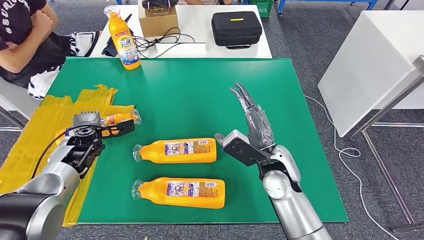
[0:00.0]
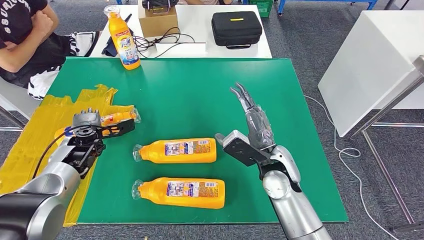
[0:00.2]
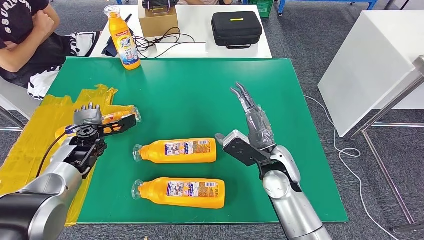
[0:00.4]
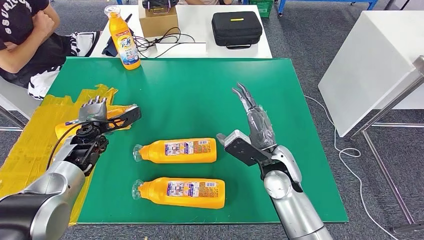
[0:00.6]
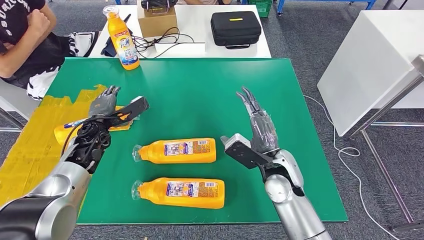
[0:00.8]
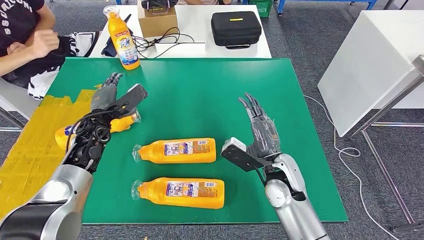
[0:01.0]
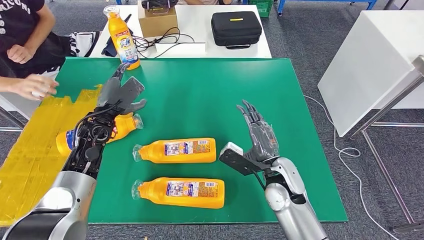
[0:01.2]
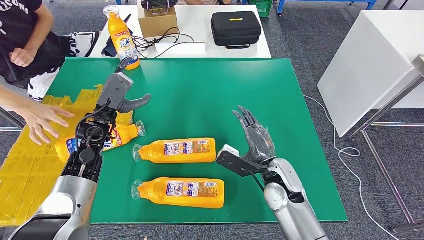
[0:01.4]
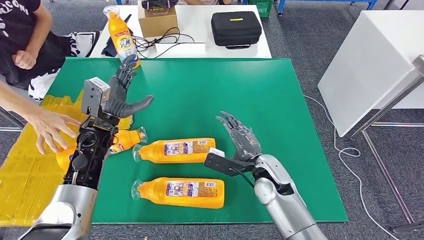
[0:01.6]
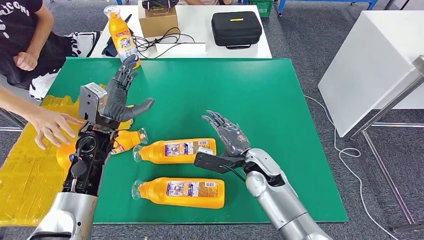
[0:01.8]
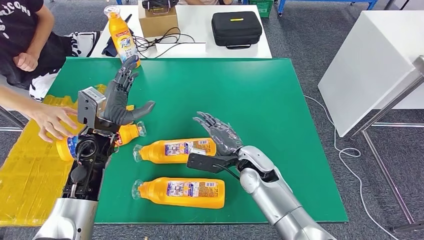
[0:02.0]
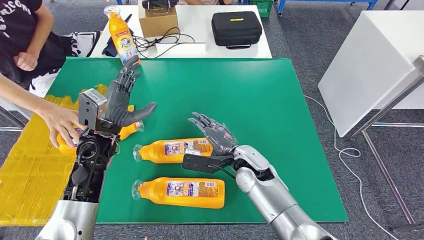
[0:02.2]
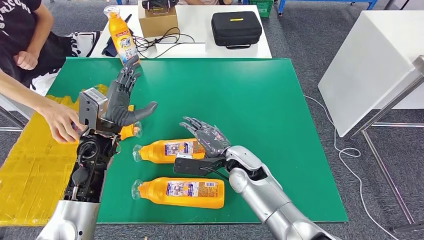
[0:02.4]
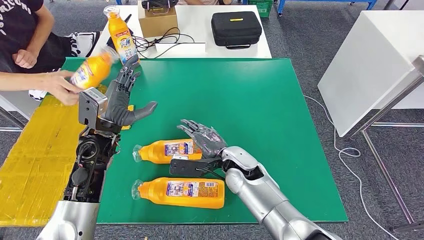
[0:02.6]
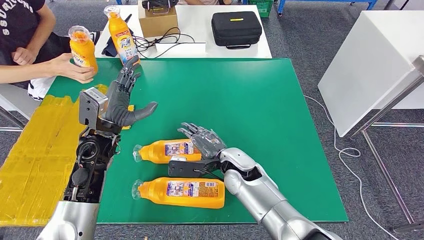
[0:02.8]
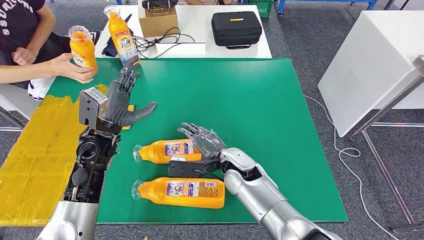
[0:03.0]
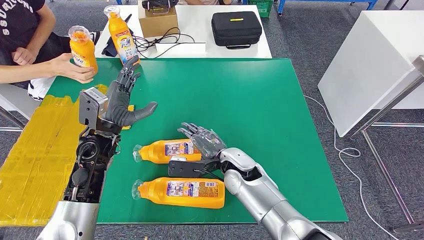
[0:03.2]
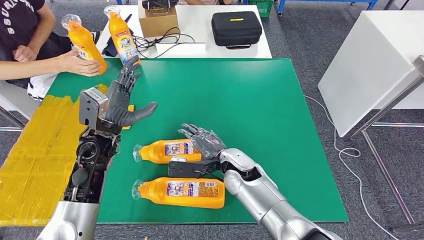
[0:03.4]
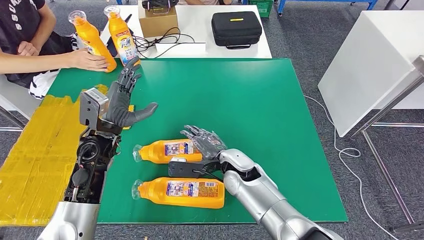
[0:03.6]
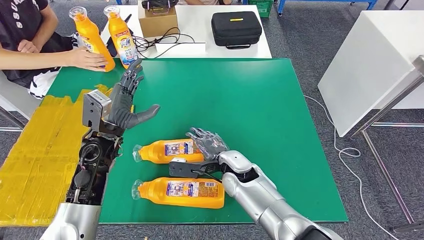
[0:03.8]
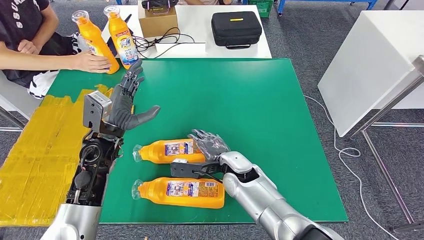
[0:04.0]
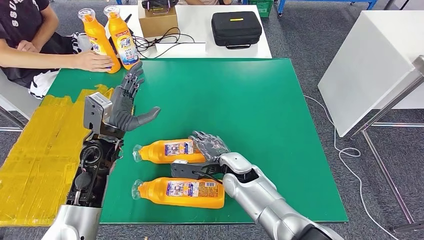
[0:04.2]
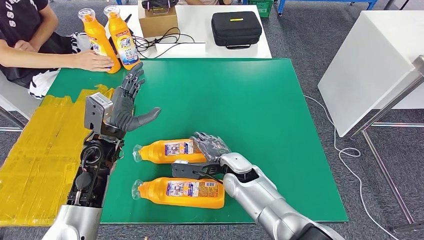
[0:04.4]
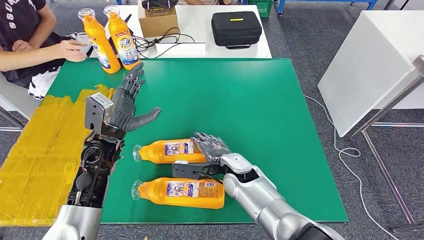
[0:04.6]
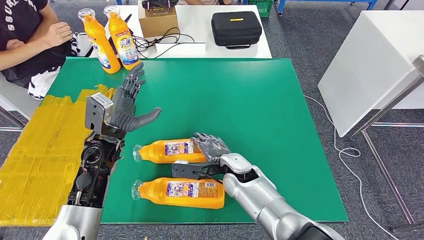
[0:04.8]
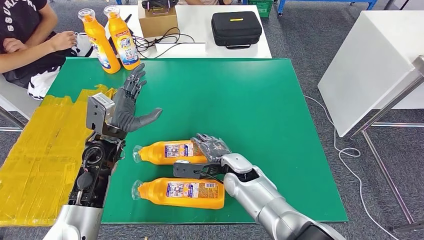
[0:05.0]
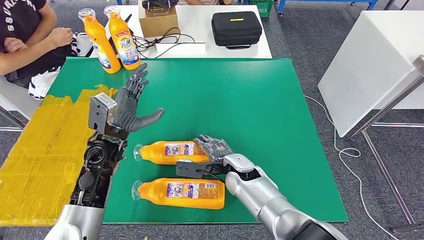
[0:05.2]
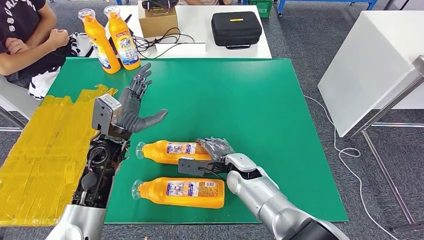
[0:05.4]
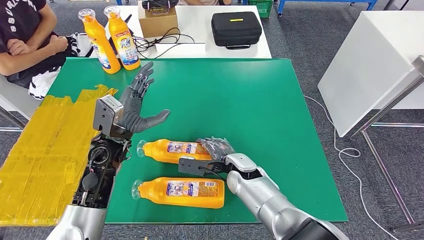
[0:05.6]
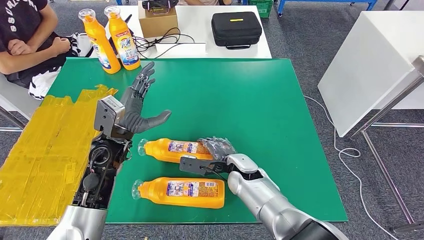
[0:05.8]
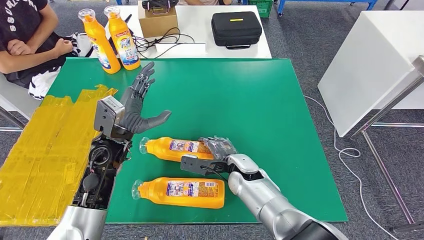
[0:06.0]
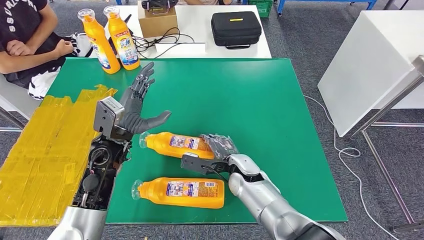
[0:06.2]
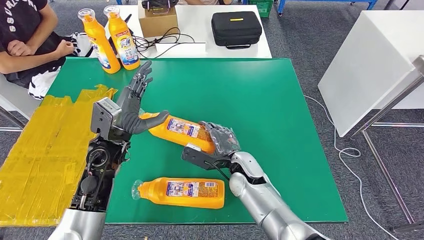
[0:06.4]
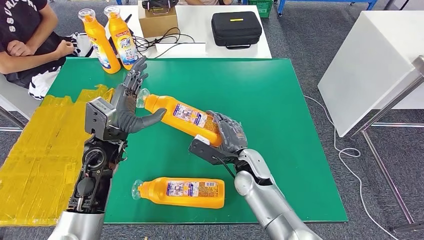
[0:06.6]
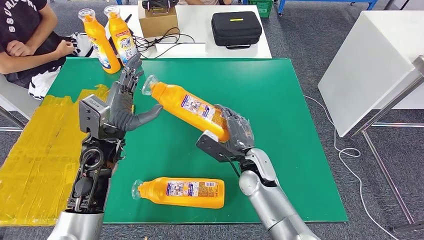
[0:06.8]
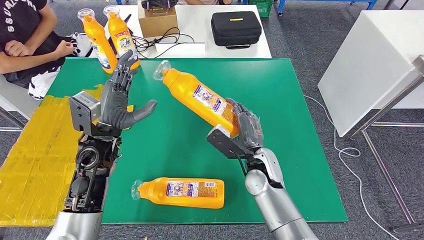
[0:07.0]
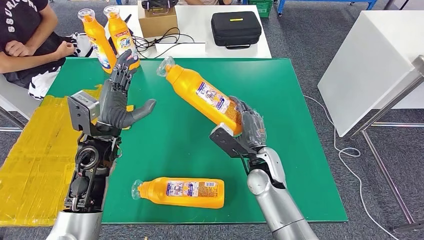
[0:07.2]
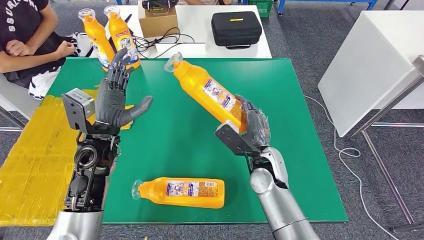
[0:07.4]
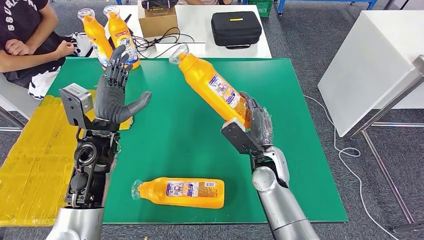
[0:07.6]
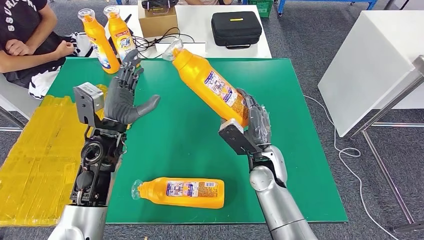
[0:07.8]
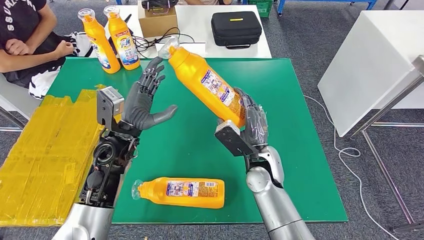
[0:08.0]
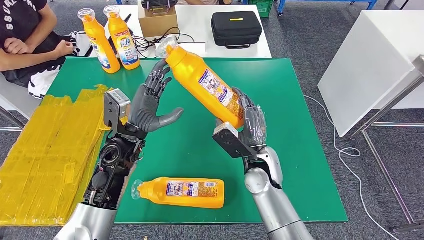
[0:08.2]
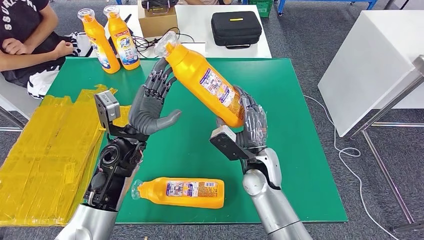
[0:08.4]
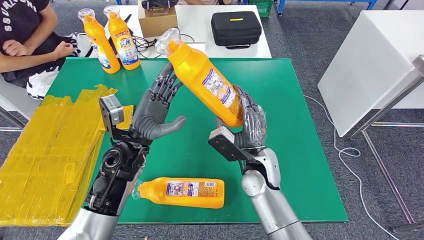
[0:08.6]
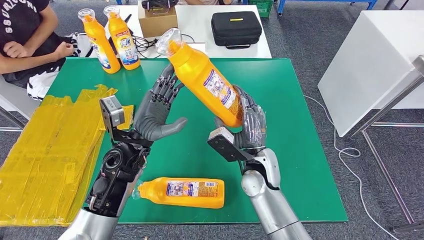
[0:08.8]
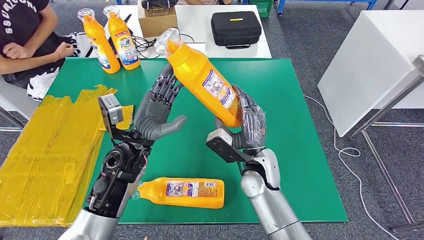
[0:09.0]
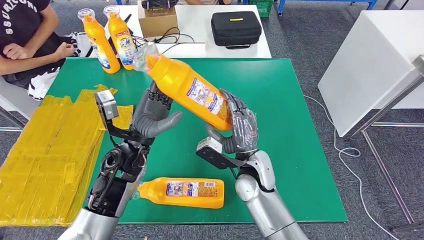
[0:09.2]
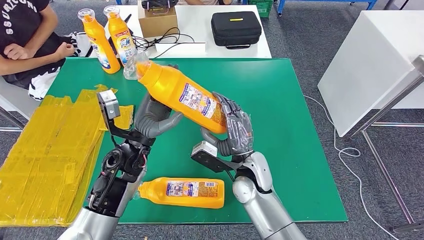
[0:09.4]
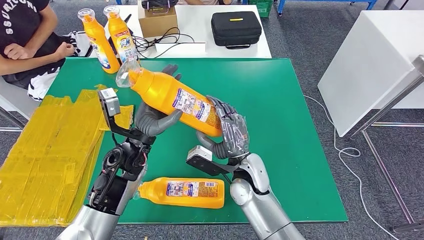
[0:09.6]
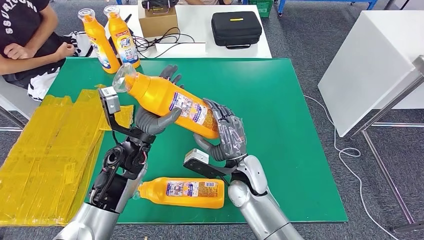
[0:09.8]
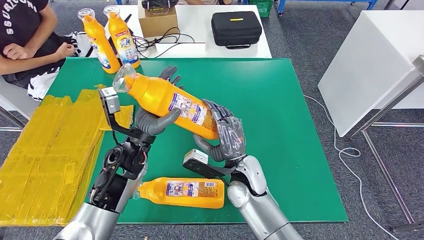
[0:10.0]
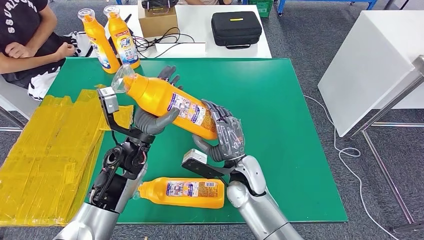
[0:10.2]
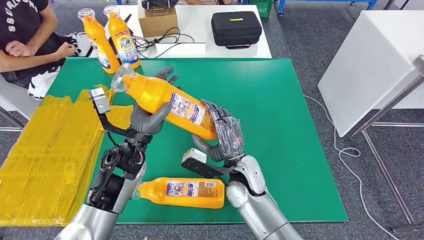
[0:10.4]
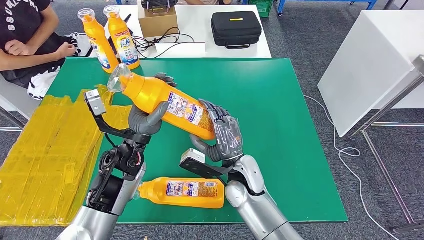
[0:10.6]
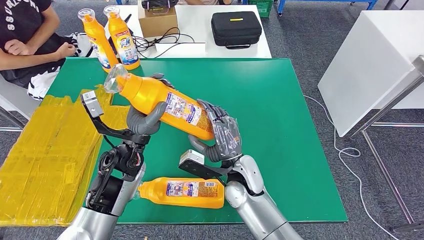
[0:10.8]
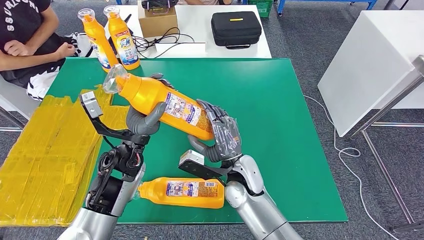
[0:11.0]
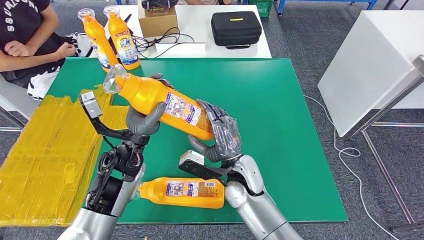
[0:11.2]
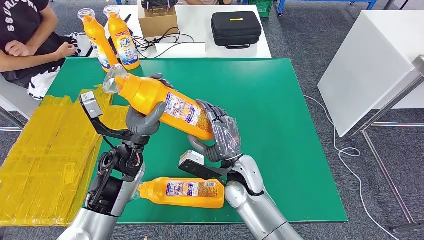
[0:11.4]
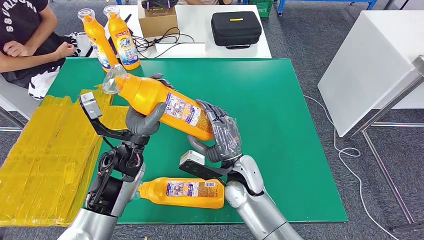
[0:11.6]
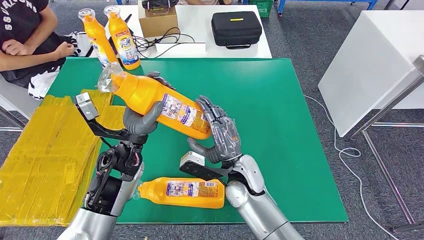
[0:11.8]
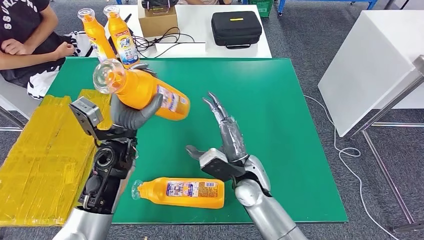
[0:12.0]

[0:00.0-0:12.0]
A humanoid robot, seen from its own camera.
Step, 0:00.2 to 0:09.8: Pick up the bottle from the table.
0:00.0 to 0:01.6: The left hand goes about 10 cm to the right and upward, while the right hand shifts by approximately 5 cm.
0:01.6 to 0:03.0: The right hand moves to the left, approximately 10 cm.
0:03.0 to 0:06.0: There are only small adjustments of the hands.
0:06.0 to 0:07.6: The right hand shifts approximately 10 cm to the right and upward.
0:07.6 to 0:09.0: The left hand moves to the right, some 5 cm.
0:09.0 to 0:10.4: The hands move only a little.

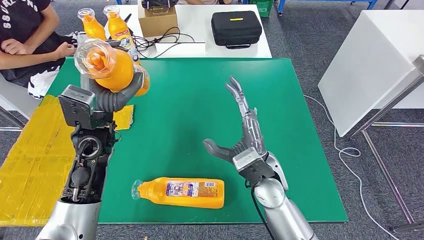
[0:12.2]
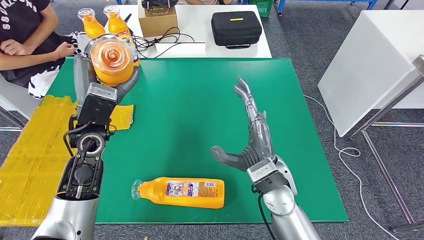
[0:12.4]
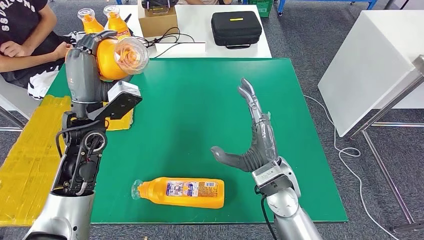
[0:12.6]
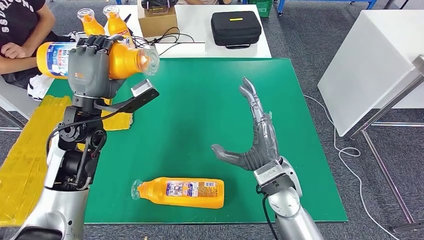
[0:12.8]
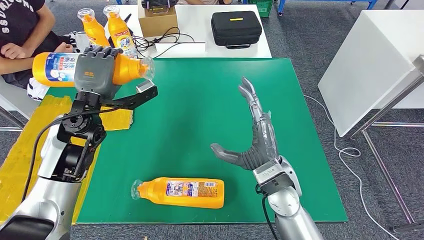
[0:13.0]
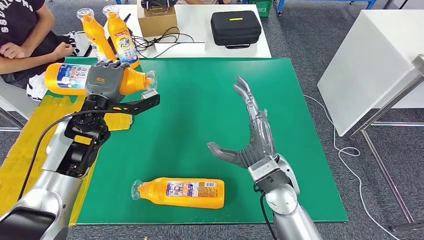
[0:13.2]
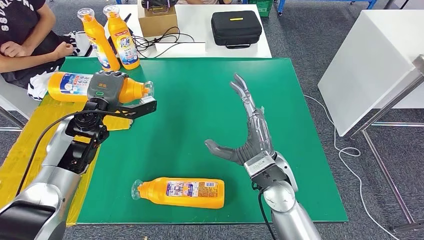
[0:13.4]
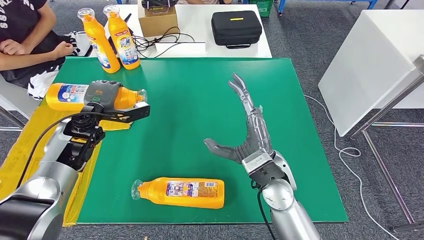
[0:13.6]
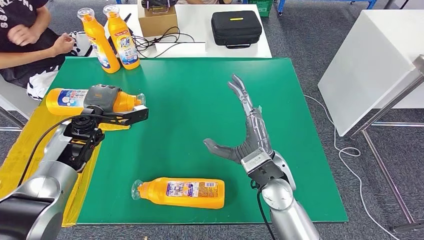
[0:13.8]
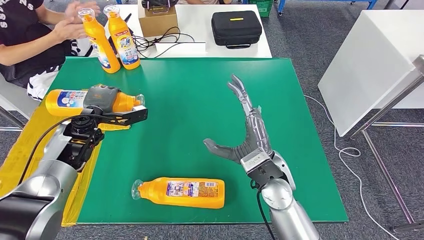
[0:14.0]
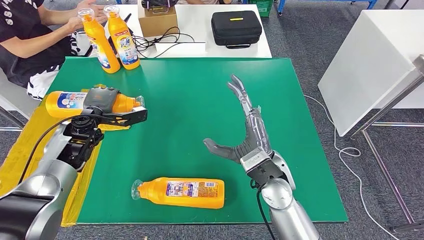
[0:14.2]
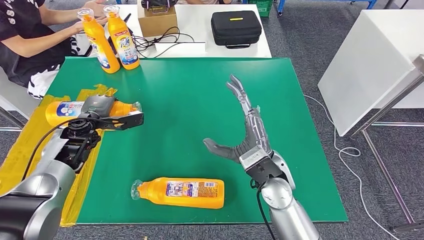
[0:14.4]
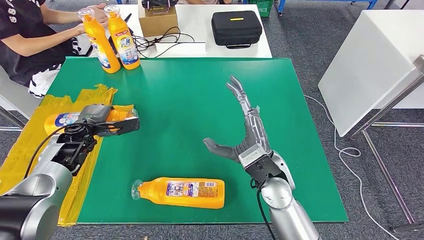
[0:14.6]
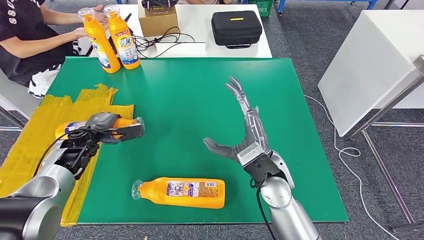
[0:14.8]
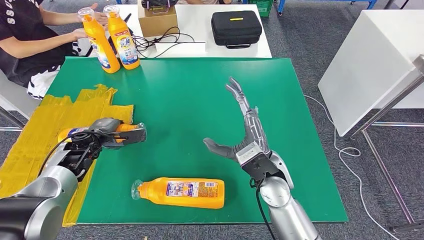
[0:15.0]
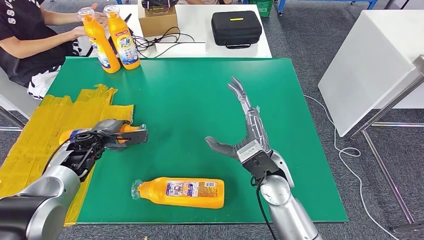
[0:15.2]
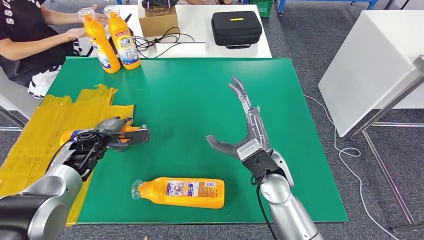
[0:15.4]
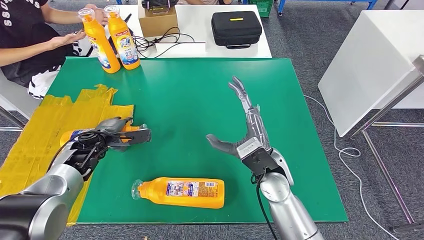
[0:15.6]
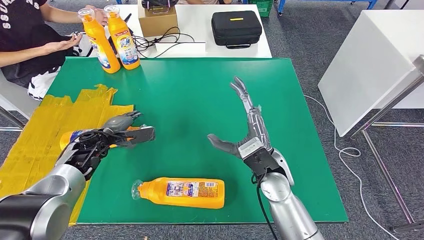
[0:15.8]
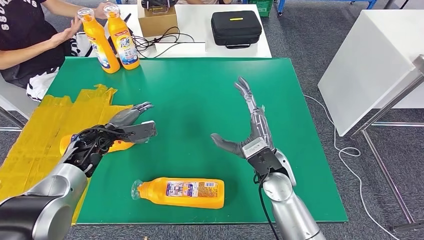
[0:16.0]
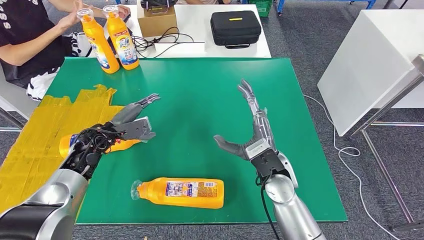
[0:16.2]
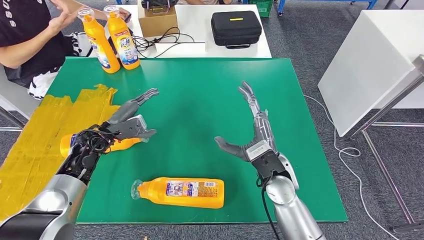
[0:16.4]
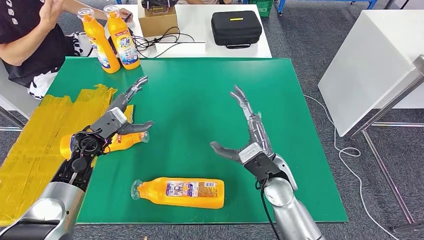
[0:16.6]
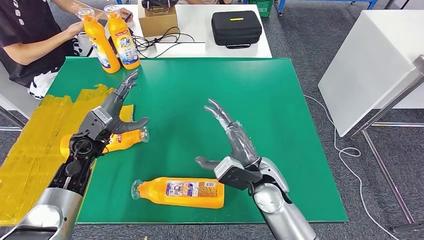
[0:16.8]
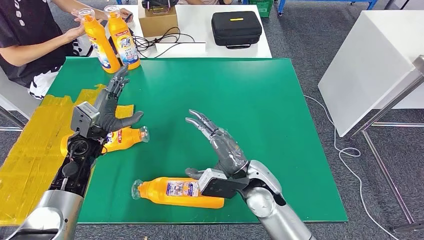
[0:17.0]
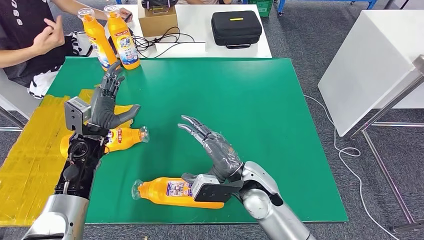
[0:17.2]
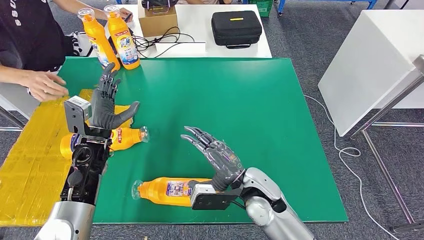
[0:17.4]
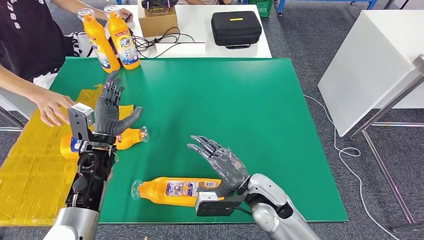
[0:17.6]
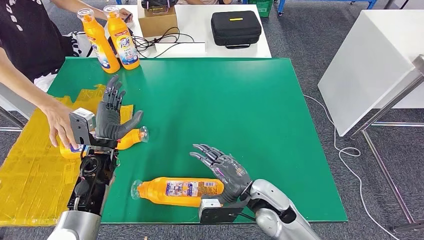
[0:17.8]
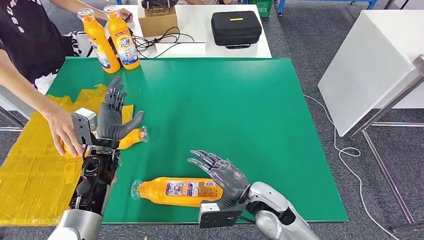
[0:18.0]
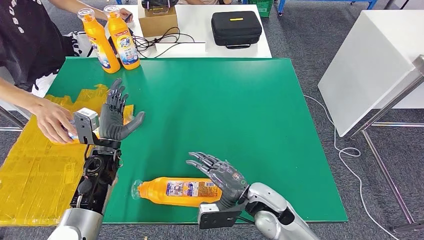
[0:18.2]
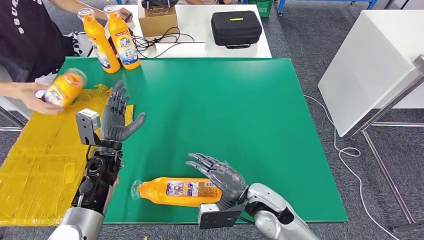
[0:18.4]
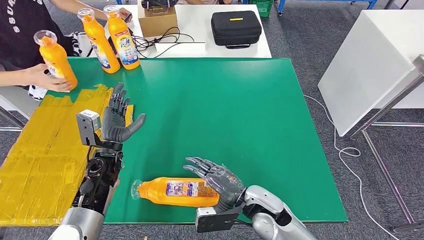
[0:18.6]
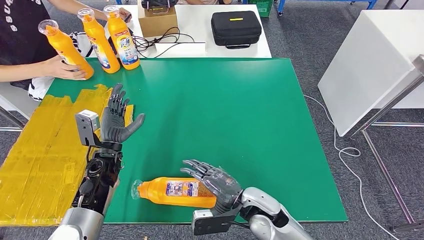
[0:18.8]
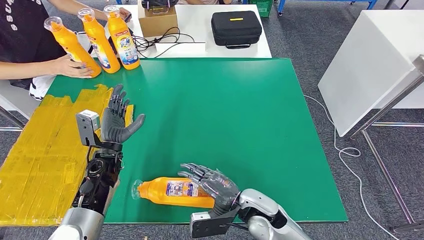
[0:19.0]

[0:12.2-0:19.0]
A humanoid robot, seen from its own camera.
Step, 0:12.2 to 0:14.8: Flip the bottle to face forward.
0:12.2 to 0:13.6: The left hand goes about 15 cm to the left, forward and downward.
0:13.6 to 0:15.0: The left hand travels downward by roughly 10 cm.
0:17.6 to 0:19.0: The hands make only small movements.
